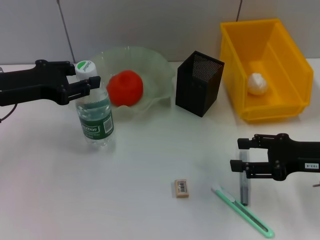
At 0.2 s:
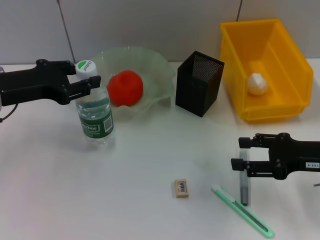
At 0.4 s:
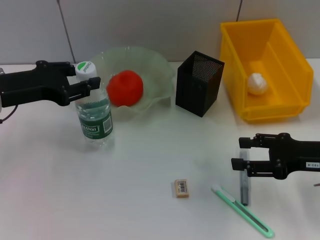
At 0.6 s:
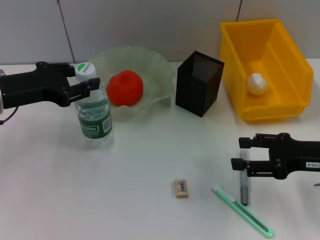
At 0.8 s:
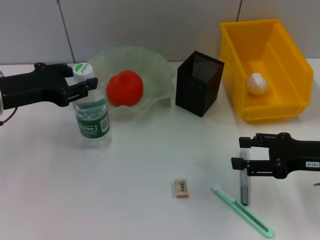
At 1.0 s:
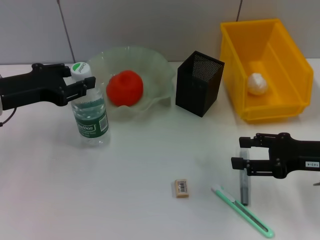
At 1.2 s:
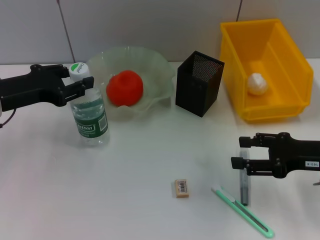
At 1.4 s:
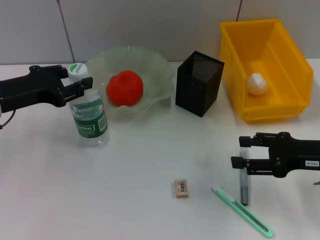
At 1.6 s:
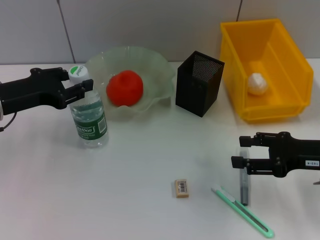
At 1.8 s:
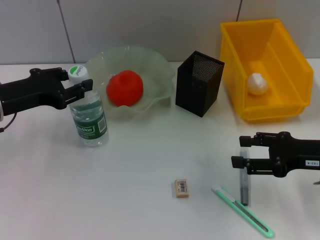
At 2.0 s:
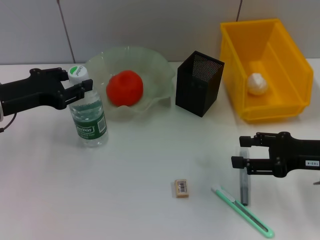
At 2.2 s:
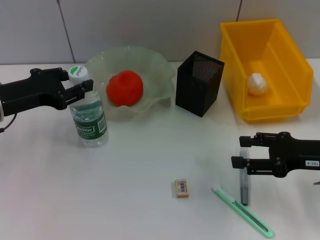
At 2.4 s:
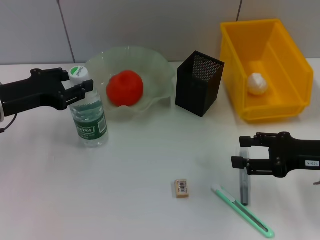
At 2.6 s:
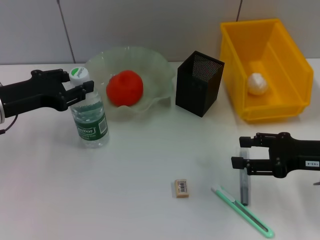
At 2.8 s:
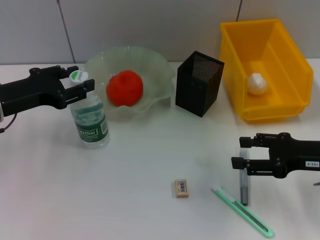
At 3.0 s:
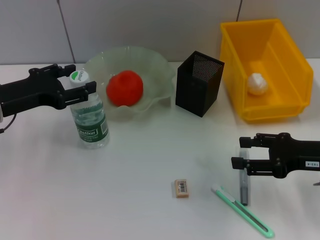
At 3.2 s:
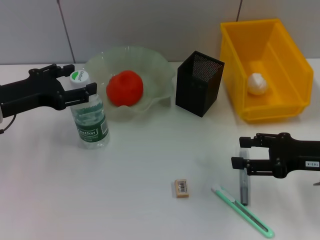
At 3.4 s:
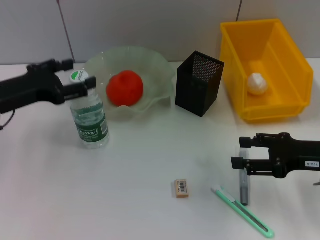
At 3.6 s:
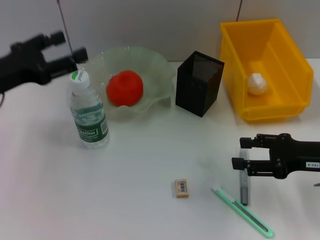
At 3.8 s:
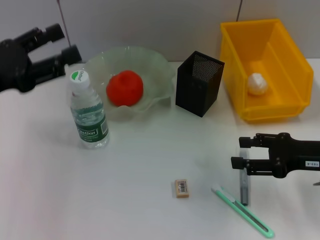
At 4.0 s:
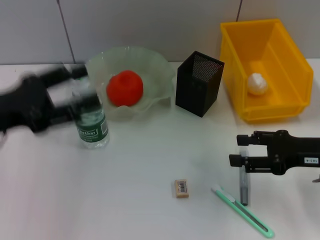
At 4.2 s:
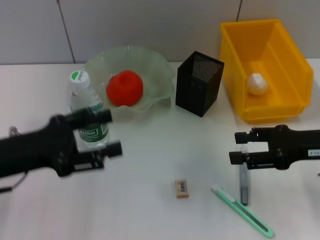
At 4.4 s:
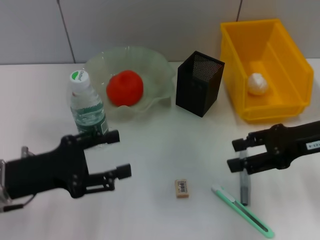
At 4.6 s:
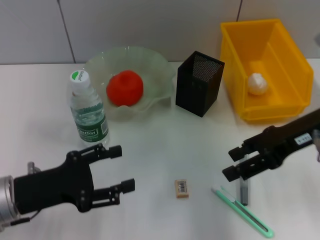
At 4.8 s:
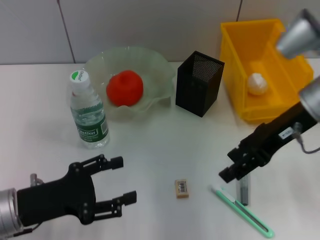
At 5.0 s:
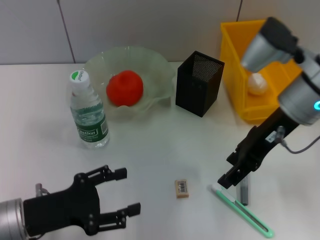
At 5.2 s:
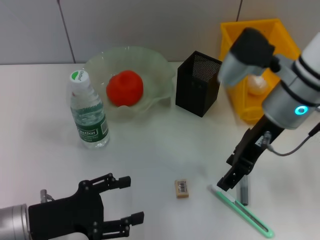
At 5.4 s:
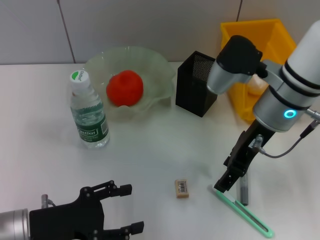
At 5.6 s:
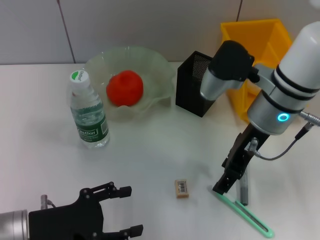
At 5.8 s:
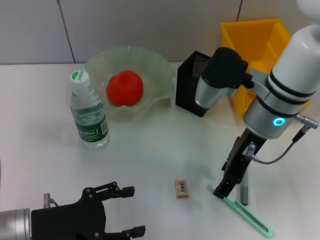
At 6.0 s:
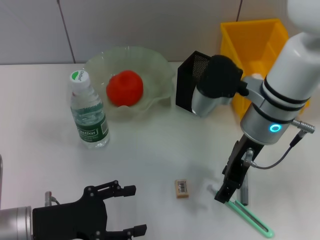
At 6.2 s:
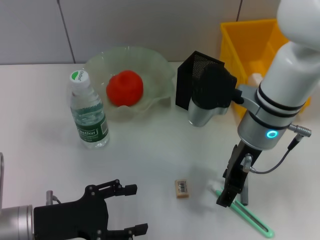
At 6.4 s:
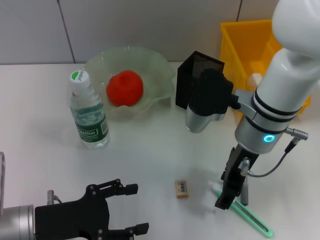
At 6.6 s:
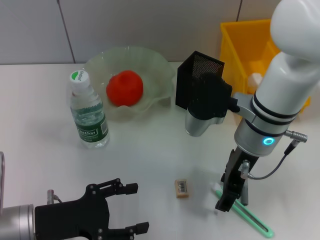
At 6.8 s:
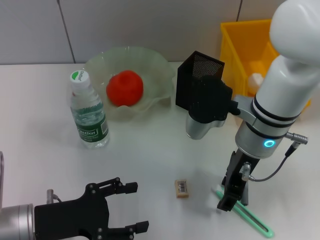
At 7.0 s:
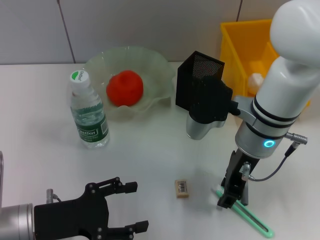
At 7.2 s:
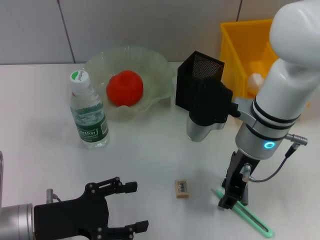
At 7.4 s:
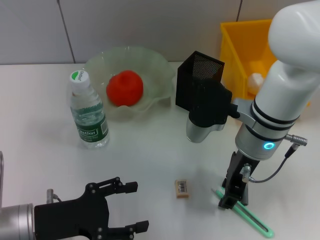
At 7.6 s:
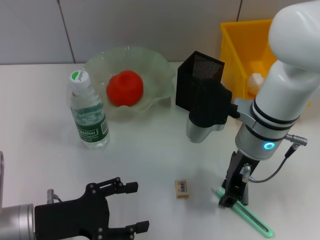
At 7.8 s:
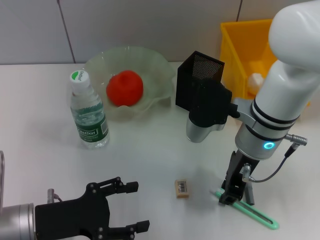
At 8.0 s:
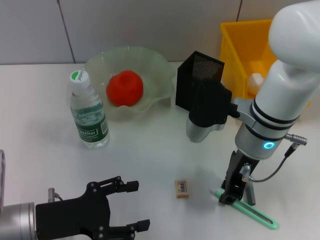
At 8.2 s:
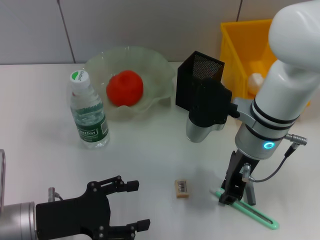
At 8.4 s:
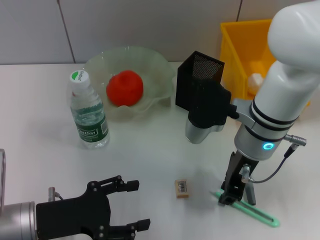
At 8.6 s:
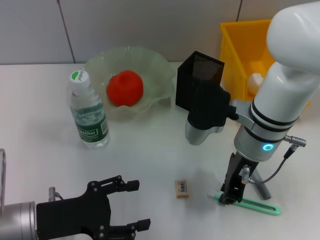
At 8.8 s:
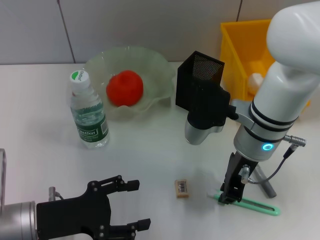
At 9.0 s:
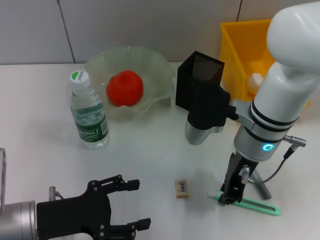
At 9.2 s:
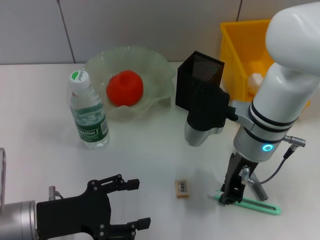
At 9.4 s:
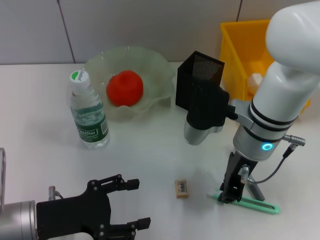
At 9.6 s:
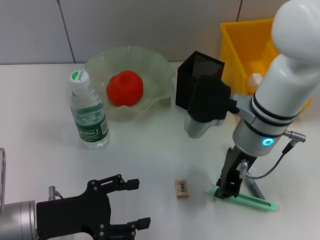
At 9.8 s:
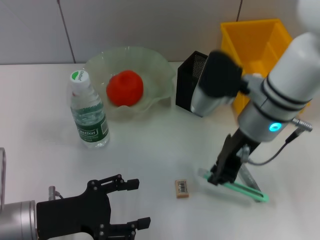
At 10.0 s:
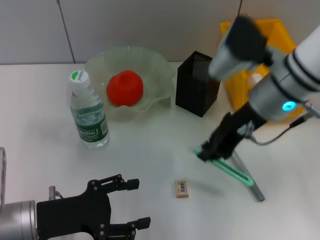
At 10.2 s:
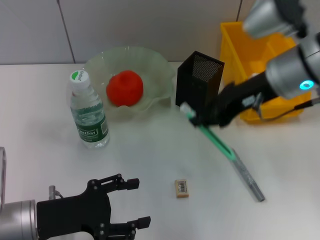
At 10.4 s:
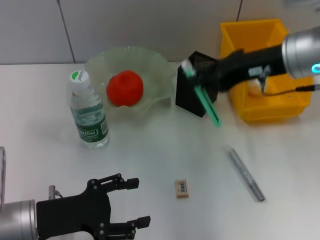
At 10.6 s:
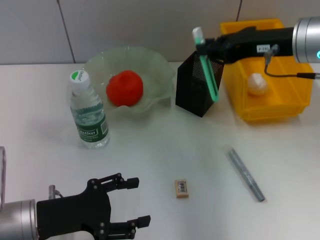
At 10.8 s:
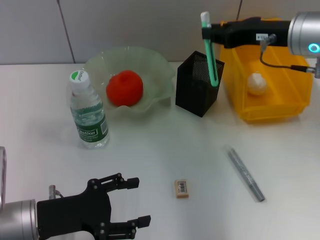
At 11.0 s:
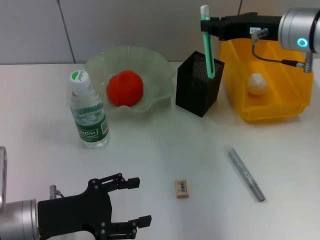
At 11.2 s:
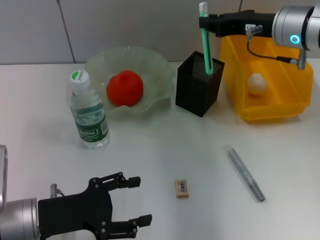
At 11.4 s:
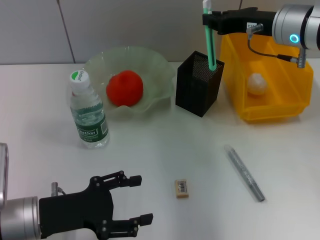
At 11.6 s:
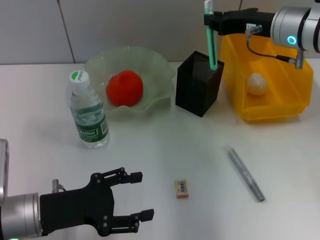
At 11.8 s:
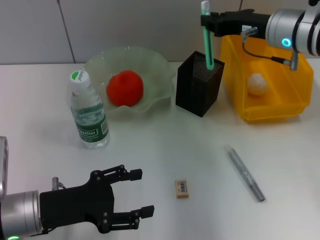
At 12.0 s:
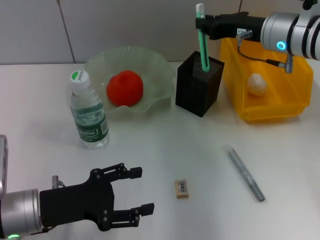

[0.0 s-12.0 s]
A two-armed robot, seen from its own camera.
Step, 0.0 to 3.0 s: Place the water bottle on the table with the left hand.
Step, 3.4 to 8.8 s: Grab the blue utility knife with the right hand.
0.0 to 1.6 s: The grippers make only small movements.
1.6 to 3.0 s: The two grippers keep their place.
3.0 to 4.4 s: The left gripper travels backward by roughly 10 cm, and opens up; the right gripper travels upward by approximately 5 cm.
4.4 to 6.0 s: The left gripper heads downward, covering about 5 cm; the right gripper moves to the left, approximately 15 cm.
6.0 to 7.6 s: The grippers move only a little.
7.6 to 9.0 s: The right gripper closes.
9.0 to 10.4 s: The right gripper goes approximately 10 cm upward and to the right.
10.4 to 12.0 s: The right gripper moves forward, some 5 cm.

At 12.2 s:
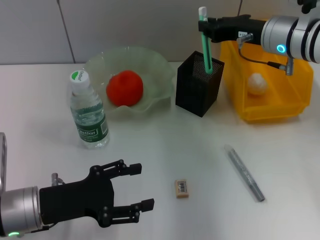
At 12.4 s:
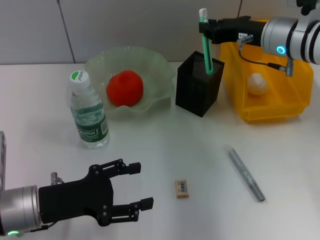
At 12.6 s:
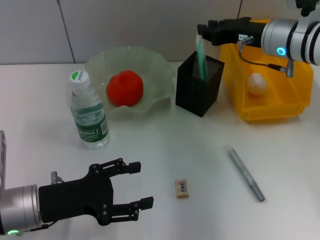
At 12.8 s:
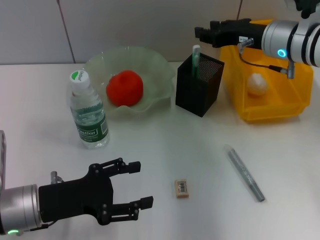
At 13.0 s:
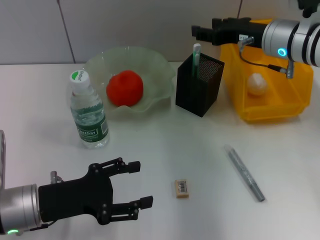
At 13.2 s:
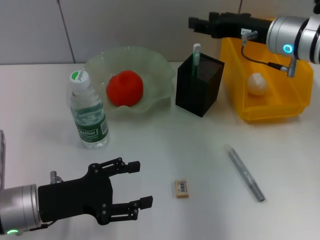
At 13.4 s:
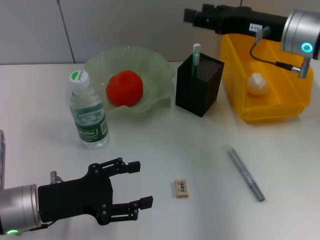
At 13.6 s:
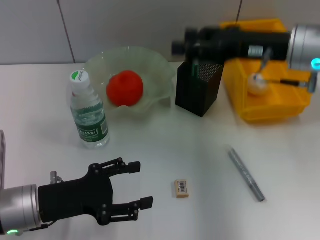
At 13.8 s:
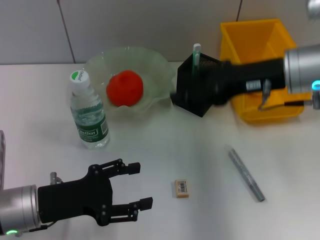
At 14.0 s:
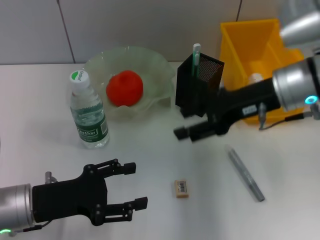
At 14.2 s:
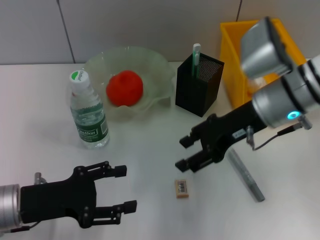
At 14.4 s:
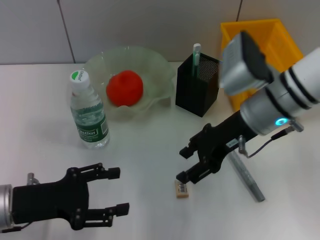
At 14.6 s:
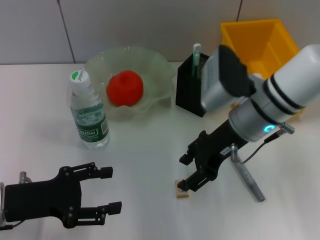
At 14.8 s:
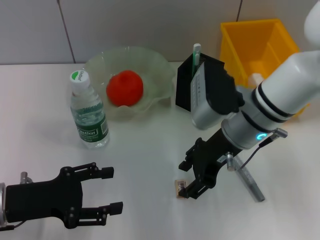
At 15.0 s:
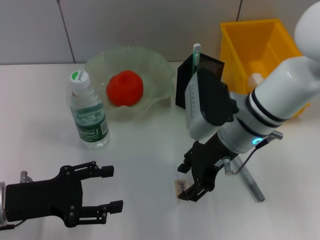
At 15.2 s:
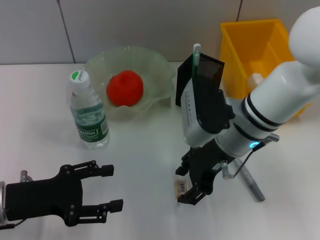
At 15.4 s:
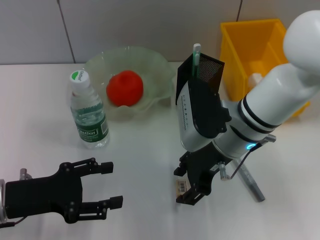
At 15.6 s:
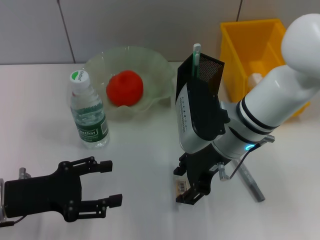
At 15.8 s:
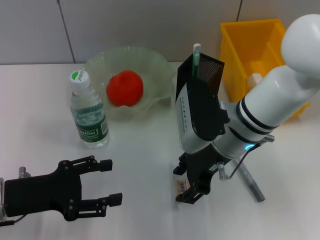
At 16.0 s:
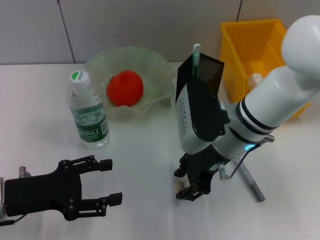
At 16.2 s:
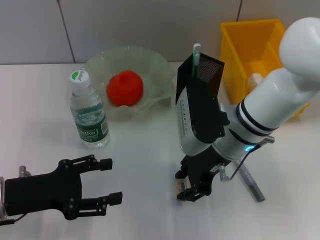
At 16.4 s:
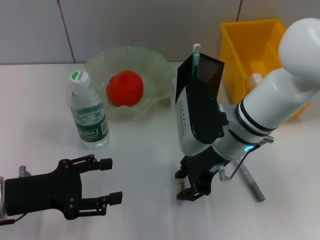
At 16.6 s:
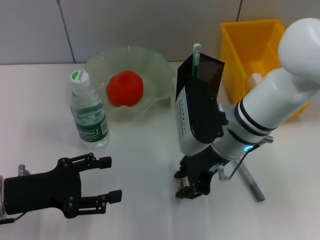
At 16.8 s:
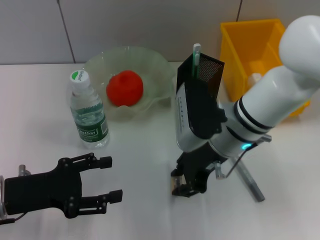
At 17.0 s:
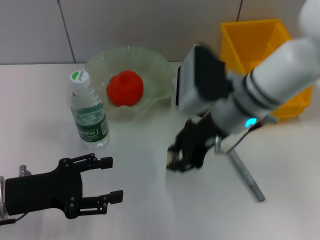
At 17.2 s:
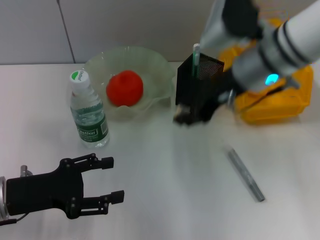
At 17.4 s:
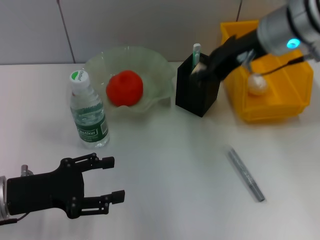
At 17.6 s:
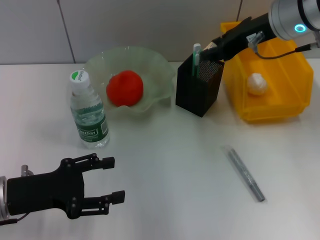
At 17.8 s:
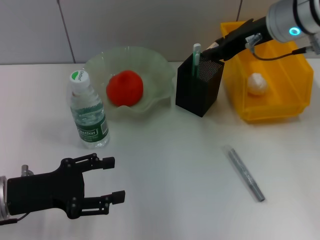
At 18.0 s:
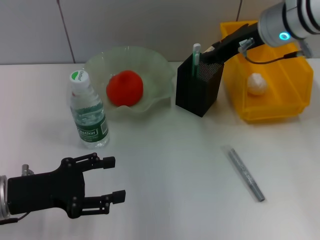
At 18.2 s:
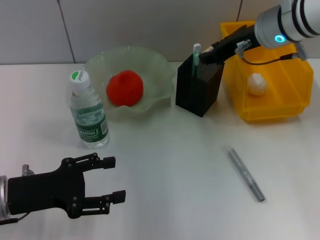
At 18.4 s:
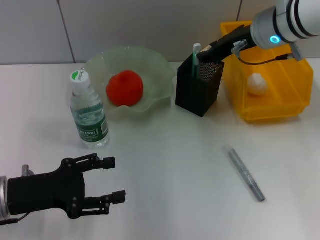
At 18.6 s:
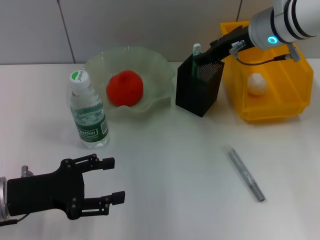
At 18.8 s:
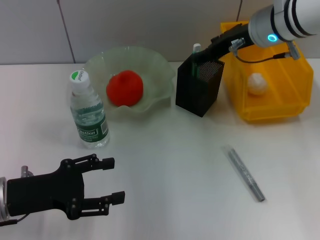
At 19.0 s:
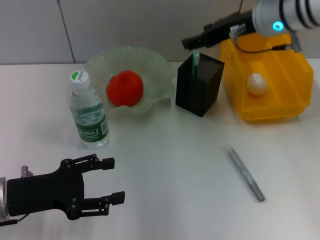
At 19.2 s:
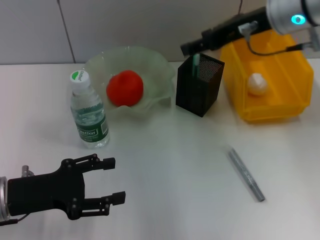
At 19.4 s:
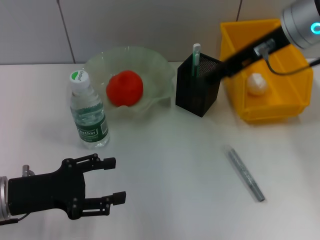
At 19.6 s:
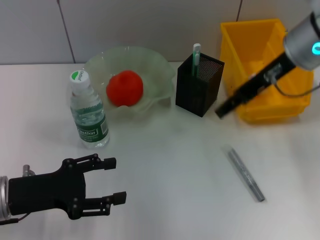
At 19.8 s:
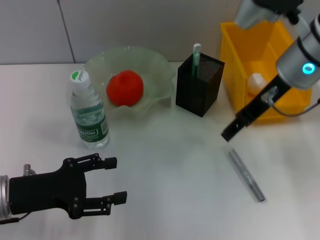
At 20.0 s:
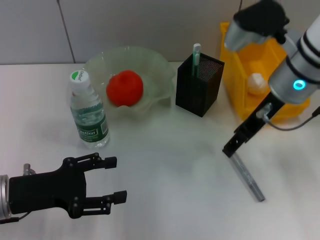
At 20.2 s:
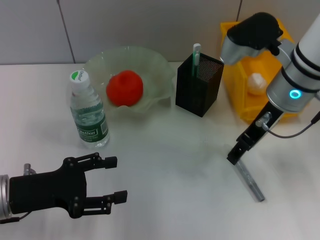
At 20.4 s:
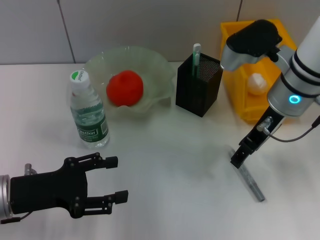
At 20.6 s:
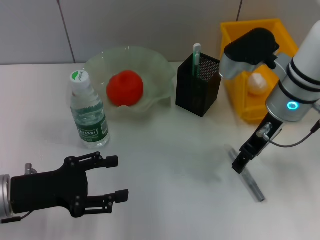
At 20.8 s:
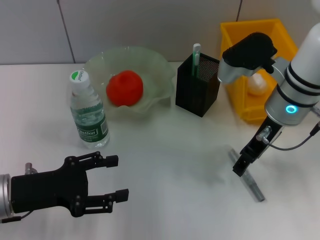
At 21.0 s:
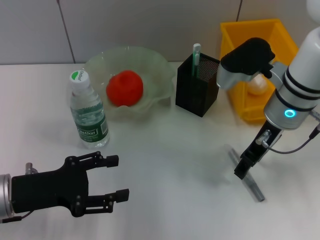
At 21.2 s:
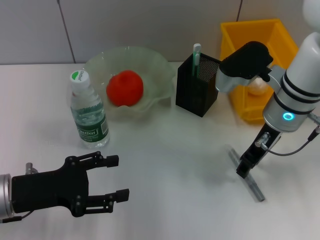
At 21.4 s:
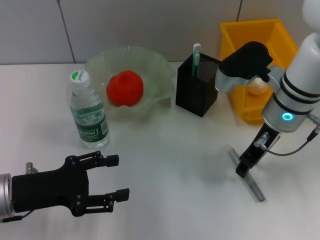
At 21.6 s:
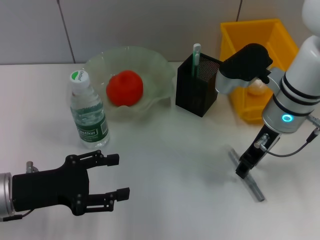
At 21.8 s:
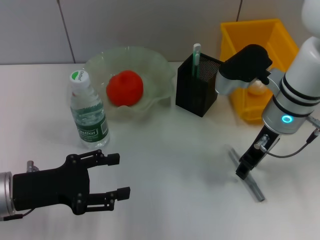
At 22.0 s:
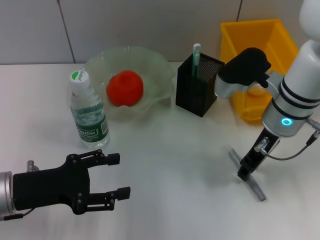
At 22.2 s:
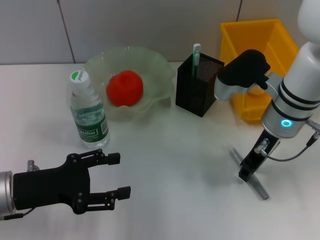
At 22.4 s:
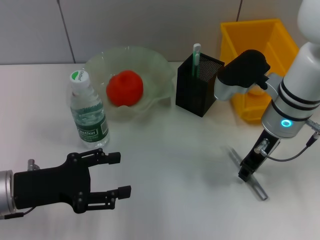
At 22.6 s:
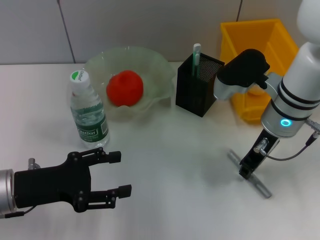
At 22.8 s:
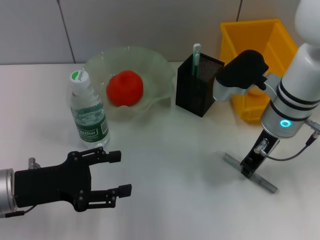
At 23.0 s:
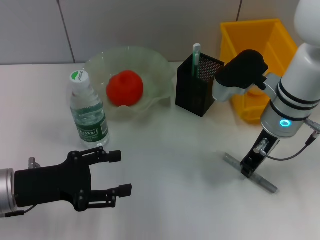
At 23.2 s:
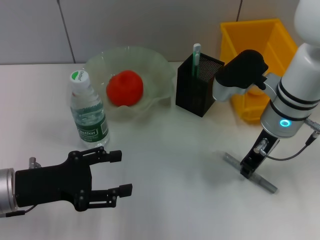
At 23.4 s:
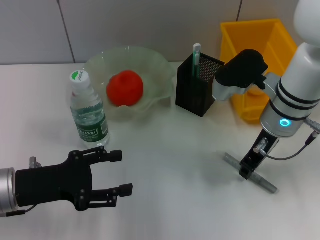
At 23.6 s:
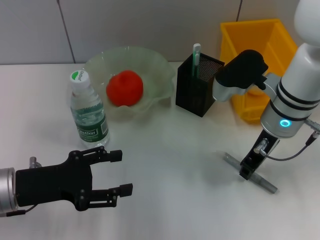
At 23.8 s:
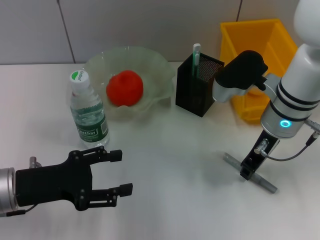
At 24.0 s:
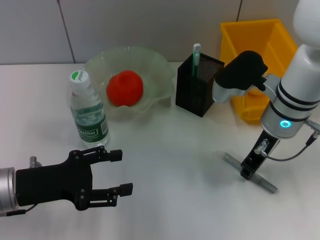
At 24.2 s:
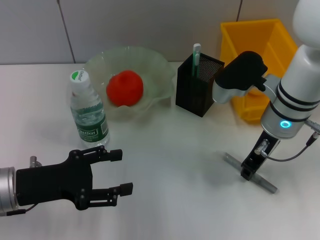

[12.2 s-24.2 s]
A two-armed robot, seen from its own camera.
Step, 13.0 to 16.6 s: Grab the eraser with the right hand.
Step, 16.8 to 18.8 s: Put the eraser into the pen holder with the right hand.
12.2 to 13.8 s: The right gripper is displaced backward by approximately 5 cm, and opens.
13.8 to 15.2 s: The right gripper travels to the left and downward by some 10 cm.
15.2 to 16.6 s: Neither gripper changes place.
16.6 to 18.2 s: The right gripper travels upward, forward and to the right by roughly 15 cm.
18.2 to 19.8 s: The right gripper travels backward by roughly 5 cm, and opens.
19.8 to 21.2 s: The right gripper is displaced downward by some 5 cm.
21.2 to 22.6 s: The right gripper closes its fingers.
22.6 to 24.2 s: Both grippers stay about where they are.
